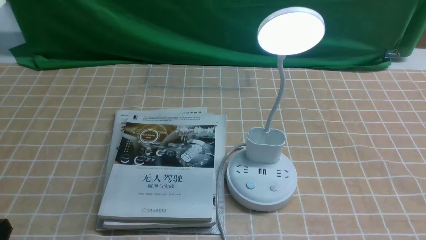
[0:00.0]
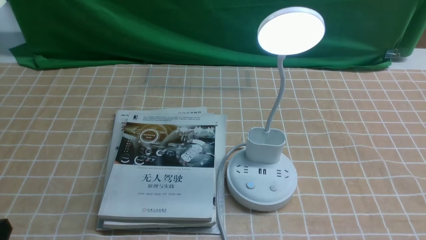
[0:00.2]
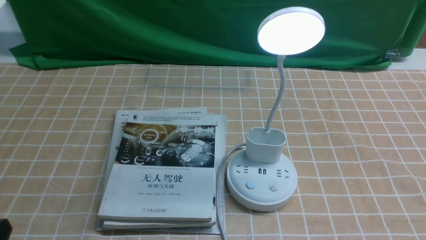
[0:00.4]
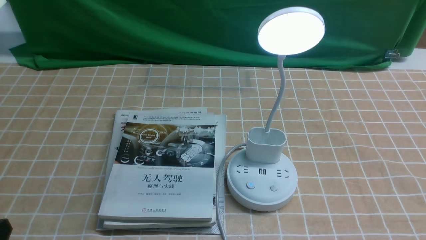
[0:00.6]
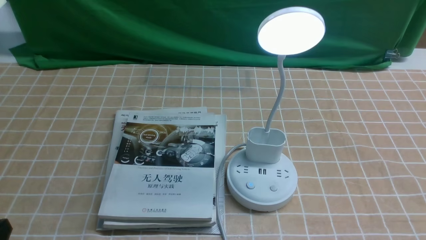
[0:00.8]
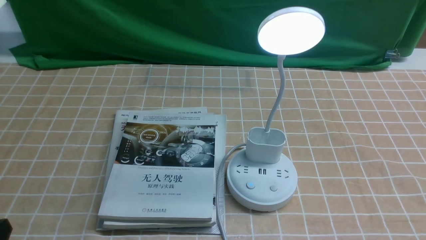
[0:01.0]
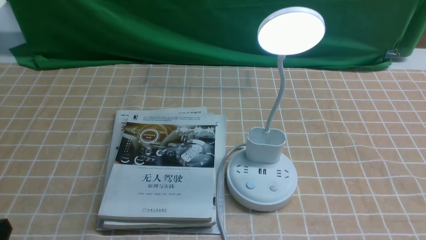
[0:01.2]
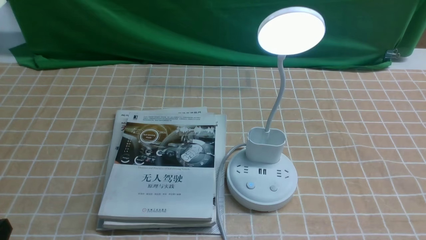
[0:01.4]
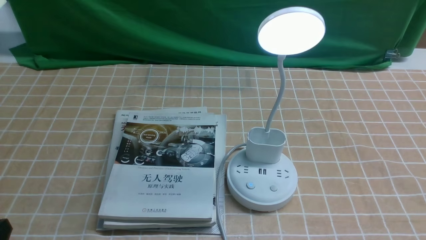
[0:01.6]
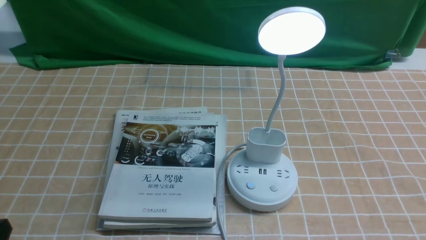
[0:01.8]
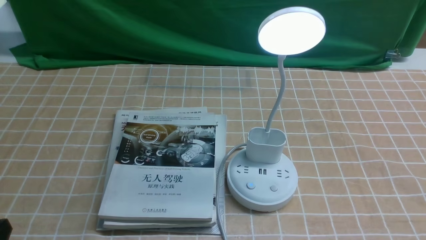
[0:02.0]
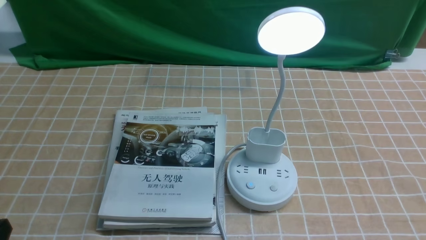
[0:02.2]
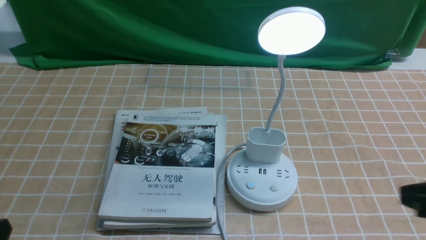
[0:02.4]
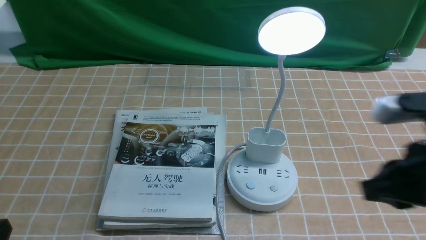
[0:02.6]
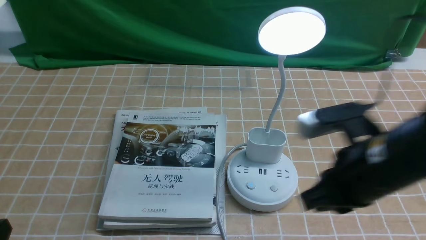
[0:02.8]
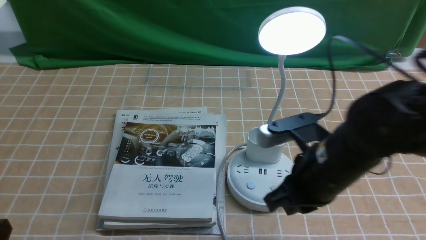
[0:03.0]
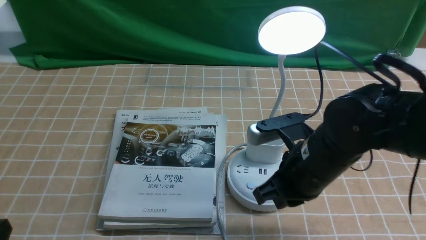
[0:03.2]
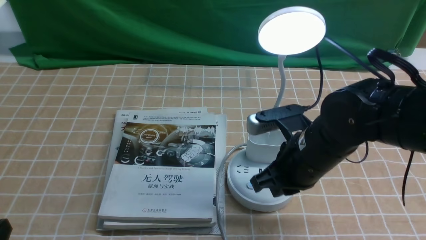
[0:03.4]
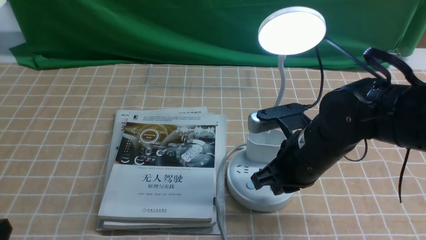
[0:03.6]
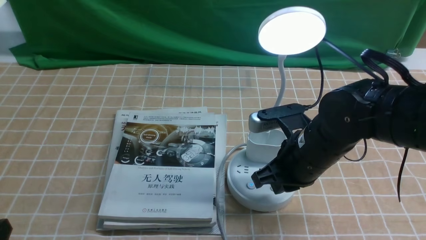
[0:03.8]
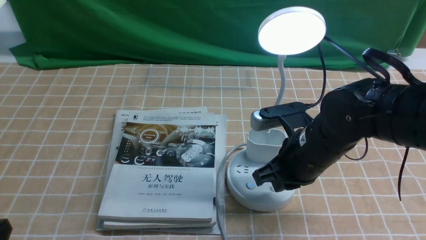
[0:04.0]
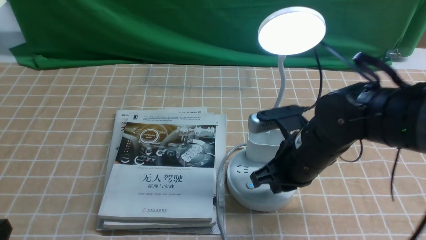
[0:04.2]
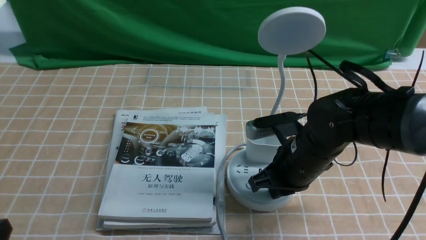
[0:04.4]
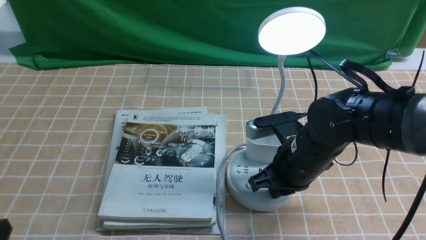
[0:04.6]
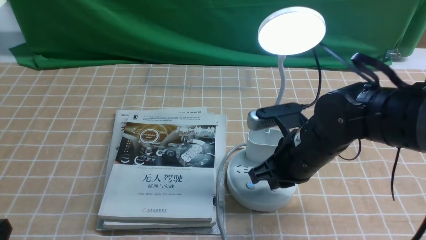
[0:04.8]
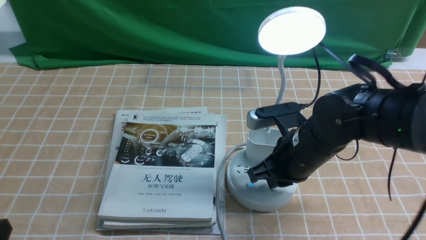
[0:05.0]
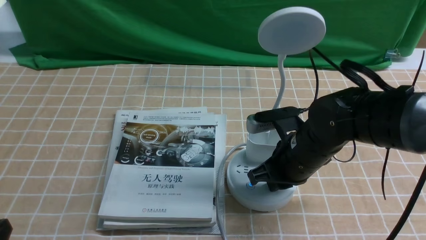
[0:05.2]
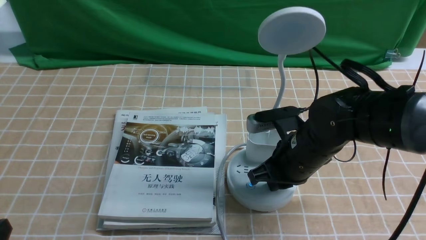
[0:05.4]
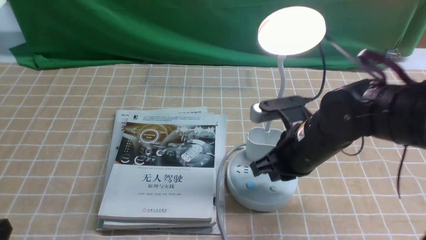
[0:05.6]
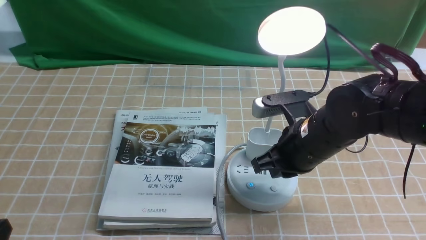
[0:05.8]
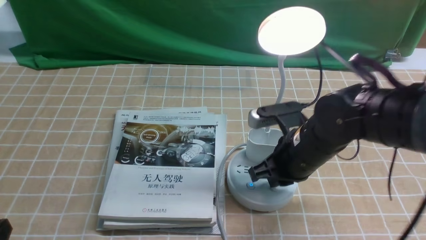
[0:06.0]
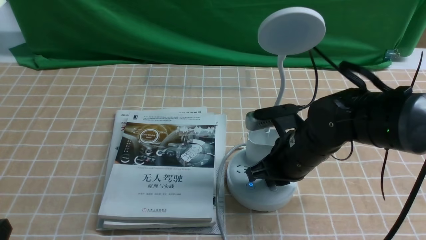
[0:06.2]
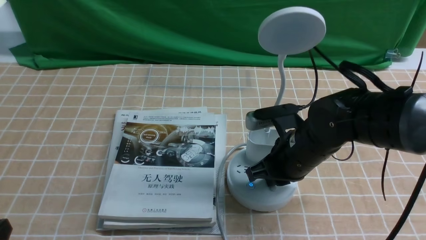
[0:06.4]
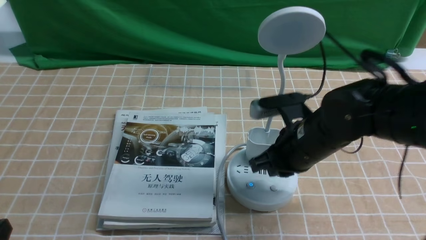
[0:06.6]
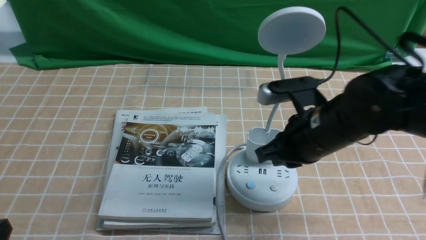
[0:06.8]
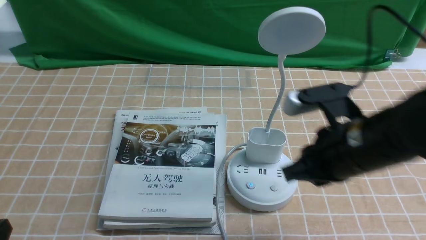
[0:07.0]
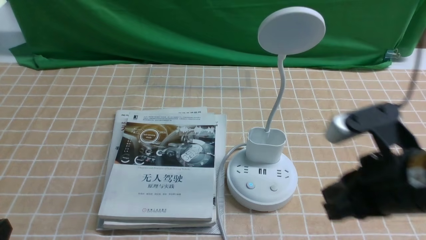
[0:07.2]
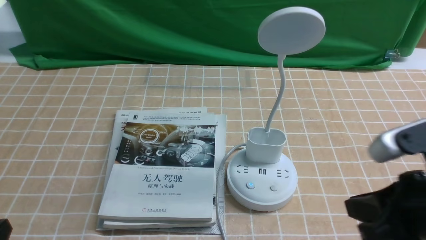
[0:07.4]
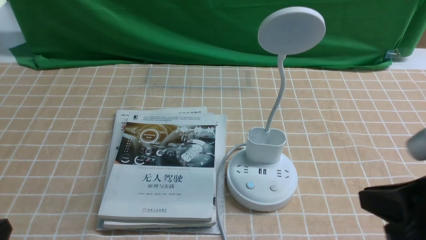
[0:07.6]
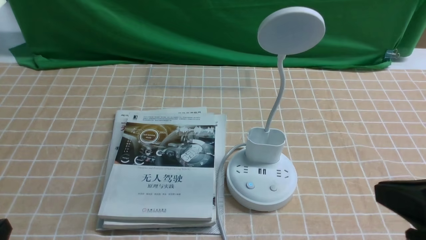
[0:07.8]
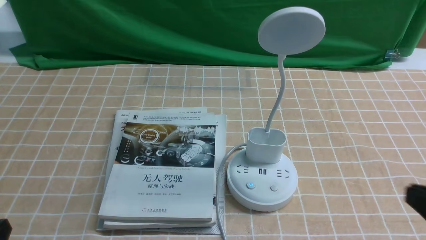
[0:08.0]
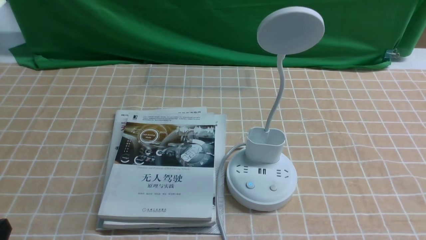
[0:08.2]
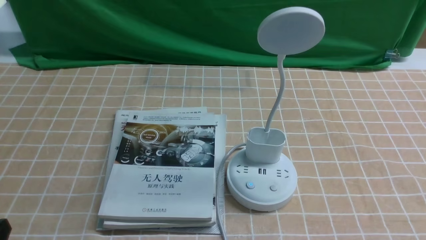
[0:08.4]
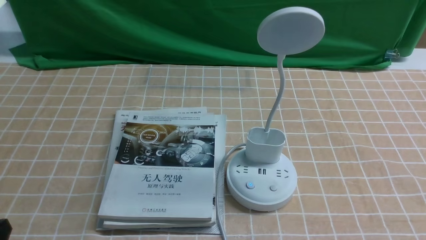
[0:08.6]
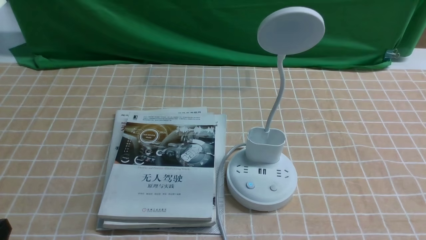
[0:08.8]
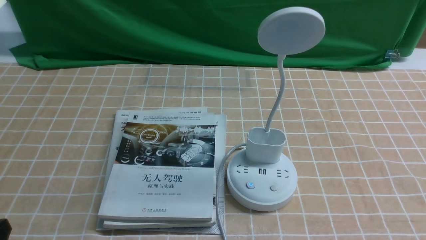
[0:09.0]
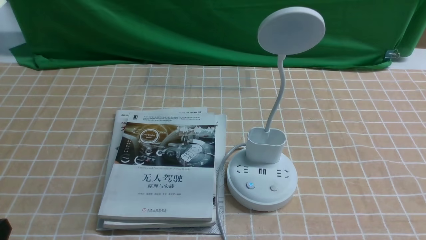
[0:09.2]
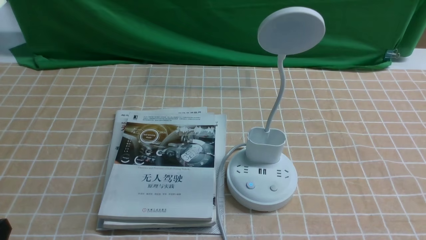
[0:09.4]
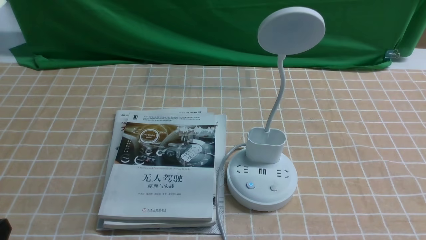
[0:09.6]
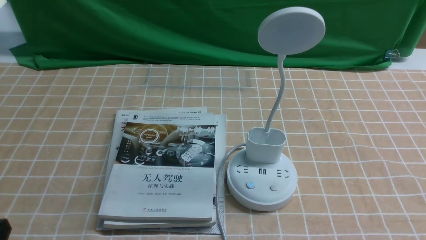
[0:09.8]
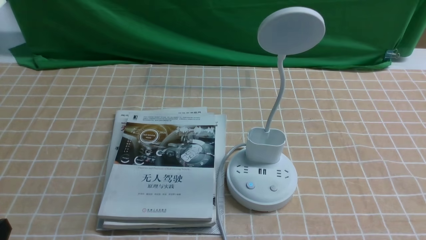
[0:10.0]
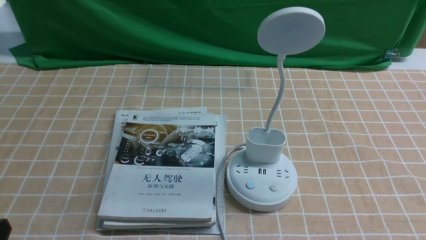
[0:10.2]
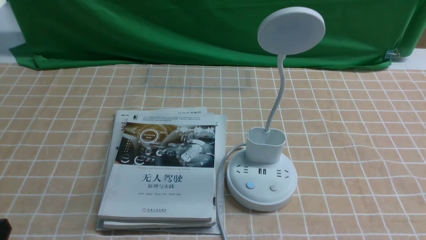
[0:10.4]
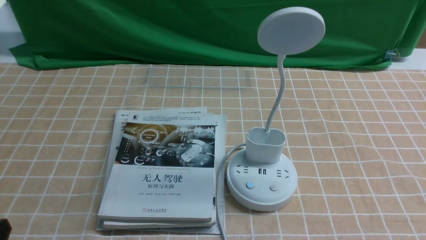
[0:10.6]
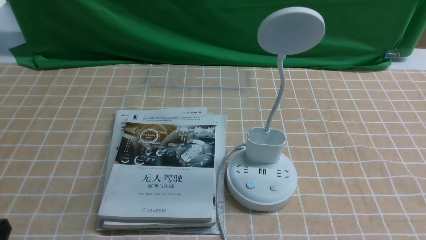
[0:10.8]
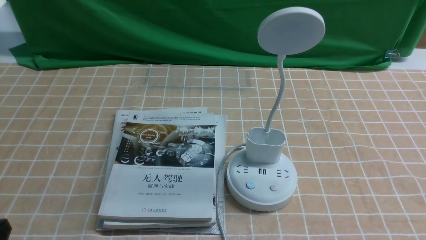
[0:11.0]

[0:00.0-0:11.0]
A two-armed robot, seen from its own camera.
Task of the whole recording: turn off the desk lamp on the light coffee tablecloth by hand.
Step, 0:00.0 to 0:06.6: use the right arm to press the button switch on the lamp holder.
0:01.6 to 0:03.2: The right gripper moves forward and to the left, some 25 cm, and closes its fingers.
0:03.2 to 0:04.8: The right gripper shifts by roughly 5 cm.
0:04.8 to 0:06.2: The grippers make only small movements.
0:06.2 to 0:07.8: The right gripper heads backward, to the right and upward, covering about 25 cm.
0:07.8 to 0:09.4: The right gripper moves downward, to the right and backward, approximately 15 cm.

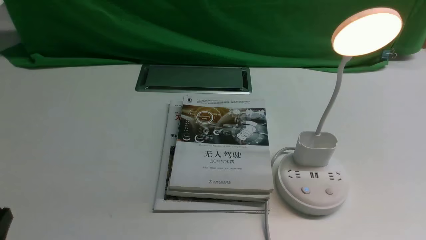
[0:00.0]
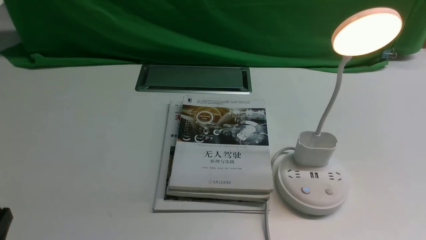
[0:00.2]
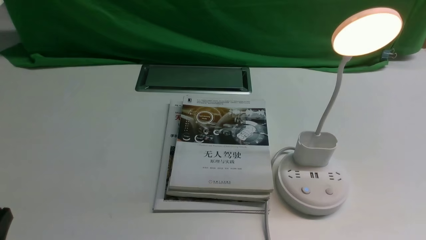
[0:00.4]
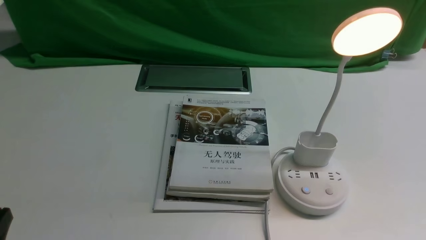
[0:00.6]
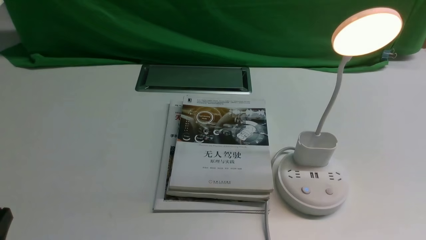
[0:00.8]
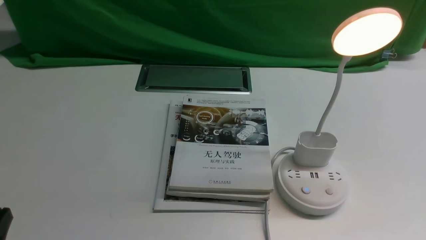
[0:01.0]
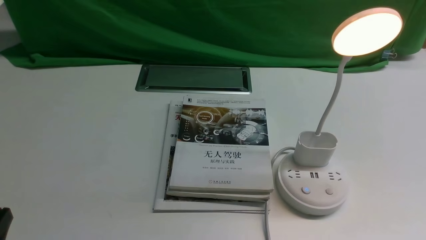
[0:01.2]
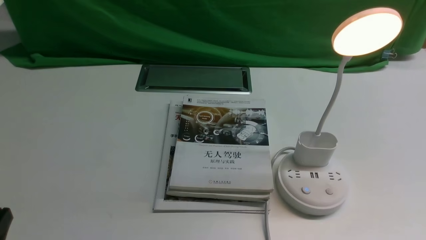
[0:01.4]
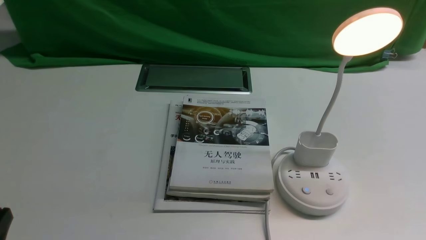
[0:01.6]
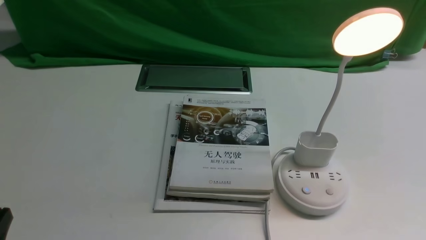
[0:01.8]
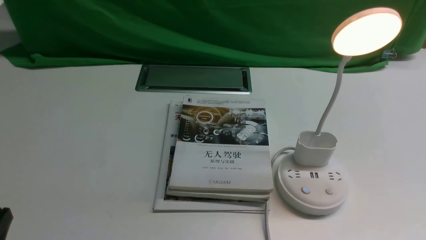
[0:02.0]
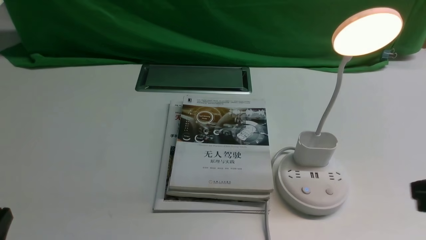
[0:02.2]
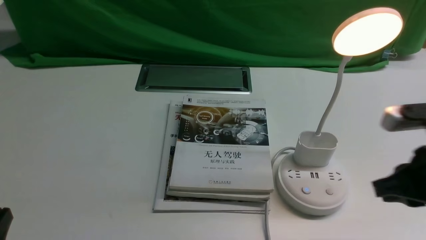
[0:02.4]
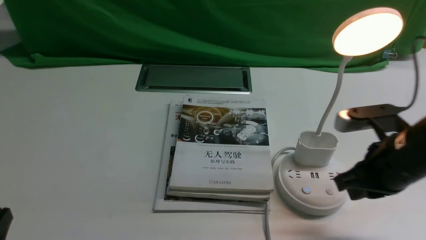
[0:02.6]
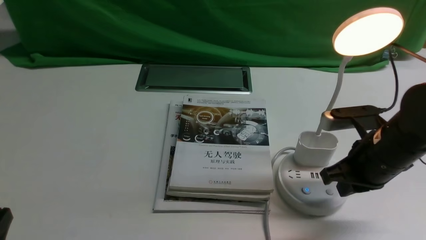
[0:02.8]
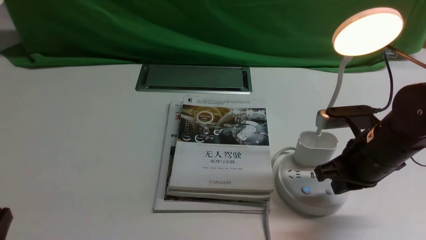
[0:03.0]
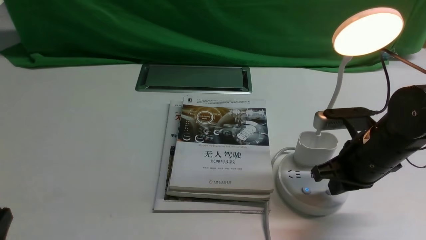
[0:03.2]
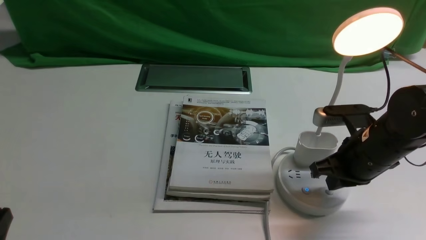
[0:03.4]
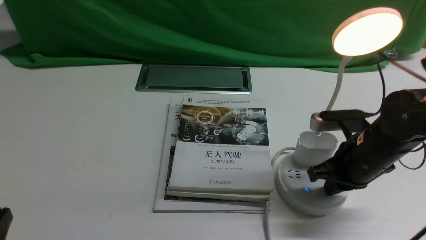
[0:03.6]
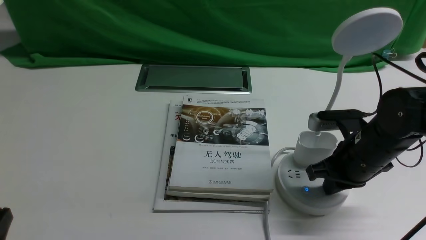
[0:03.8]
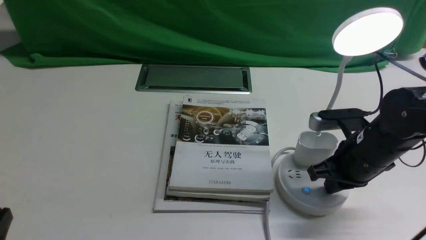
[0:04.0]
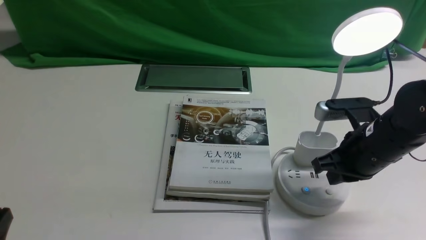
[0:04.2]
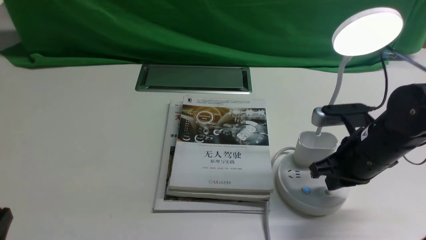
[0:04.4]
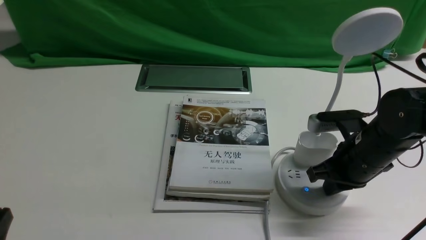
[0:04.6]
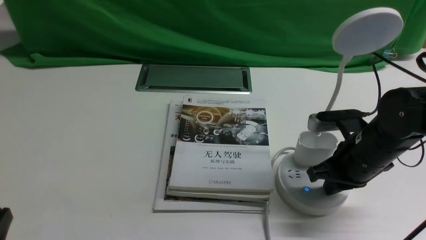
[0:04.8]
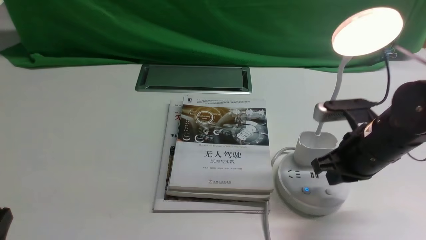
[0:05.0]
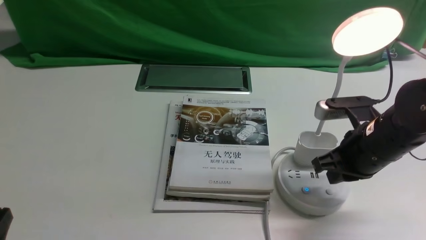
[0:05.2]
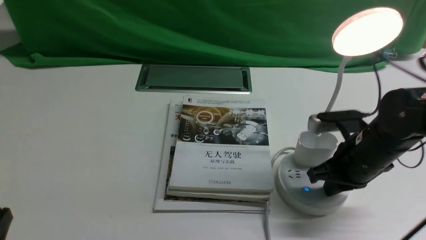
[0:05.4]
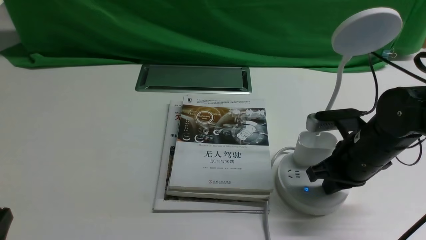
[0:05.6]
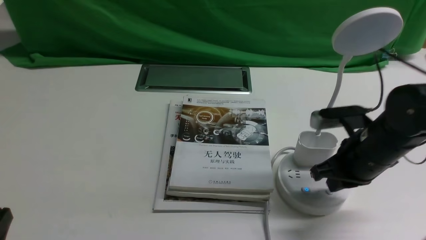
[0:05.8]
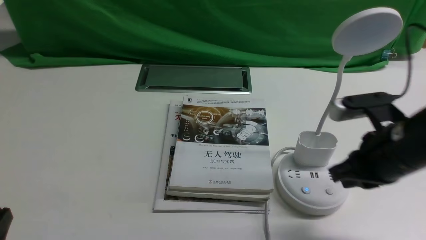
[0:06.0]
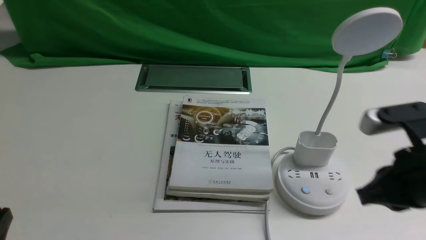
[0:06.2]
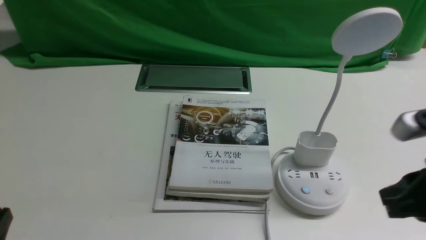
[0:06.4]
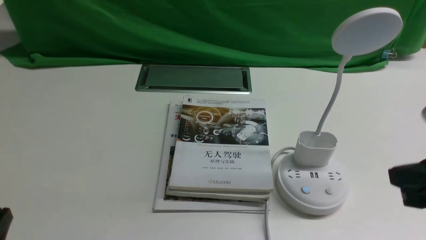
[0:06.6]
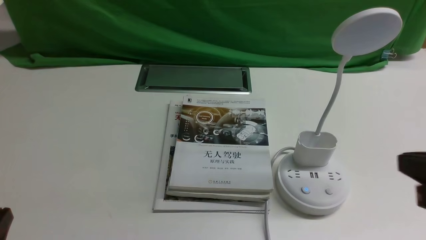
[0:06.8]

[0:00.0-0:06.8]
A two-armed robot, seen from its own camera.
Task of the whole recording: turn off the desk lamp on the white desktop by hand.
Step, 0:00.0 to 0:05.8: use the right arm to press the button switch on the lamp holder.
0:01.4 to 0:02.8: The right gripper heads forward and to the left, covering roughly 25 cm.
0:02.8 to 0:04.0: The grippers move only a little.
0:04.0 to 0:05.4: The two grippers keep their place.
0:05.4 to 0:06.8: The right gripper shifts approximately 20 cm backward and upward.
